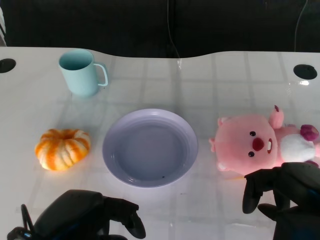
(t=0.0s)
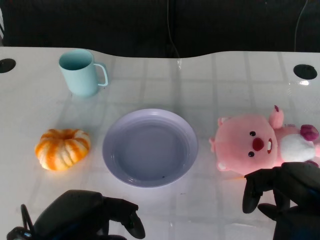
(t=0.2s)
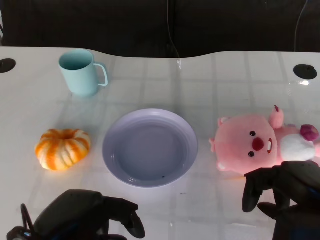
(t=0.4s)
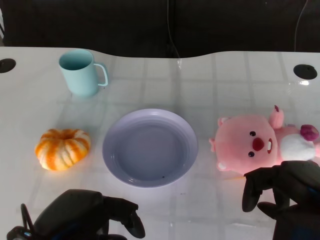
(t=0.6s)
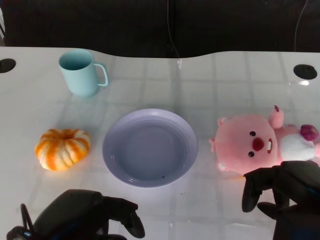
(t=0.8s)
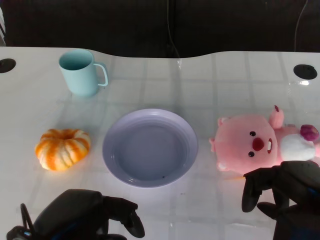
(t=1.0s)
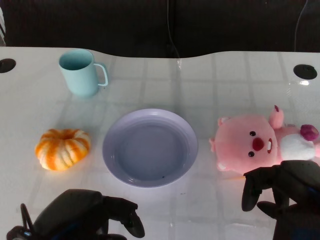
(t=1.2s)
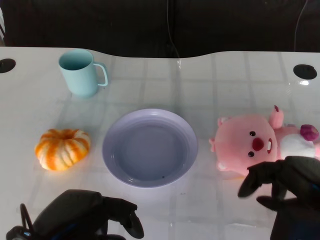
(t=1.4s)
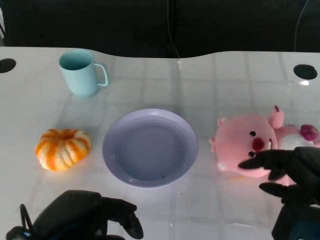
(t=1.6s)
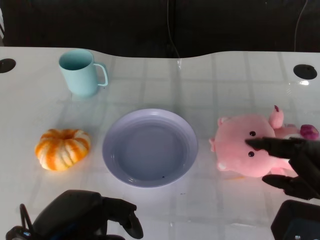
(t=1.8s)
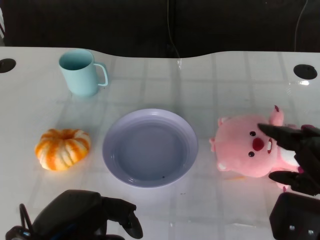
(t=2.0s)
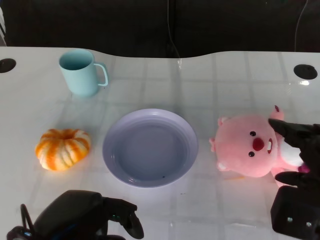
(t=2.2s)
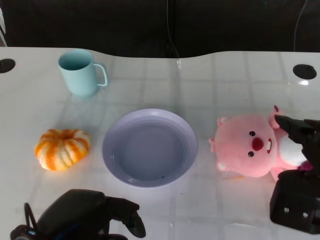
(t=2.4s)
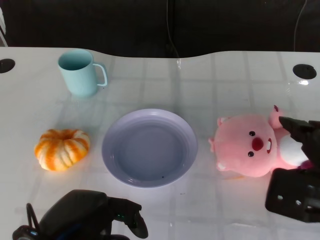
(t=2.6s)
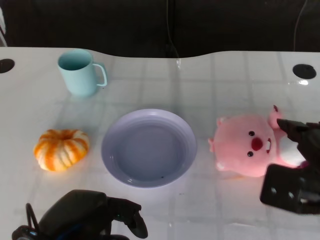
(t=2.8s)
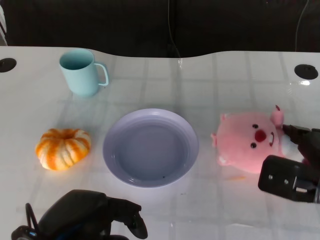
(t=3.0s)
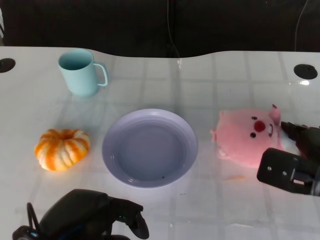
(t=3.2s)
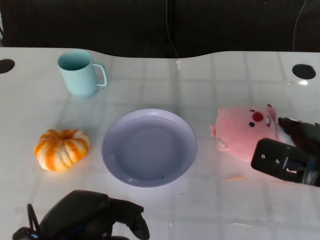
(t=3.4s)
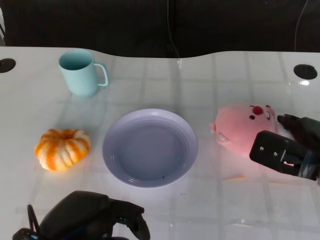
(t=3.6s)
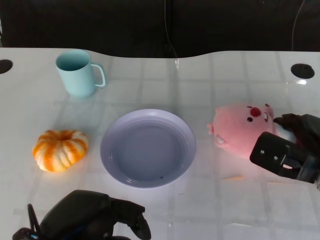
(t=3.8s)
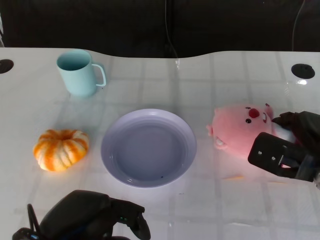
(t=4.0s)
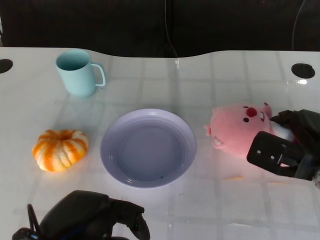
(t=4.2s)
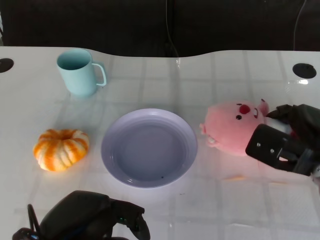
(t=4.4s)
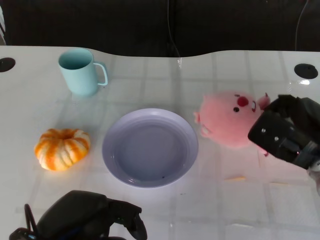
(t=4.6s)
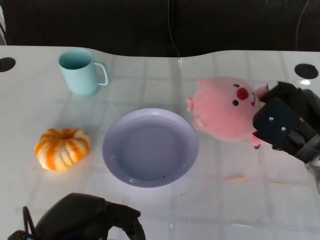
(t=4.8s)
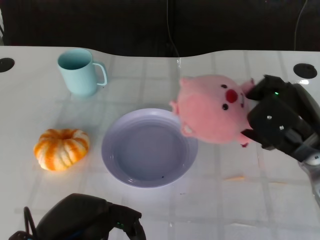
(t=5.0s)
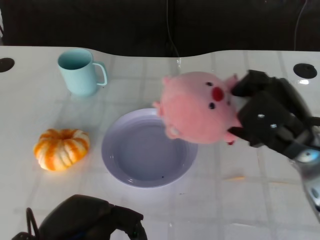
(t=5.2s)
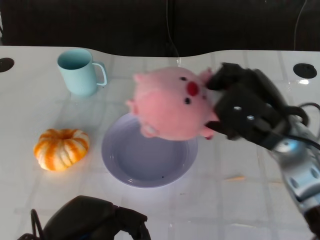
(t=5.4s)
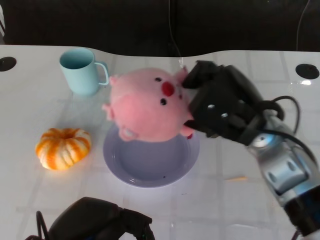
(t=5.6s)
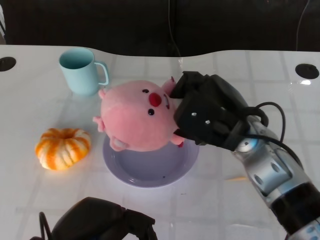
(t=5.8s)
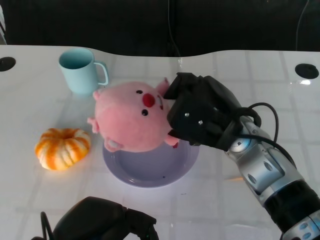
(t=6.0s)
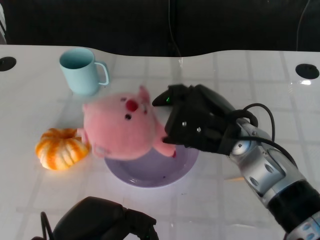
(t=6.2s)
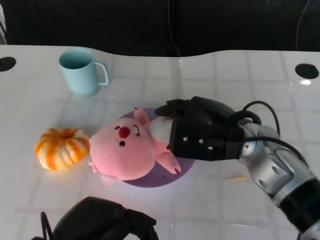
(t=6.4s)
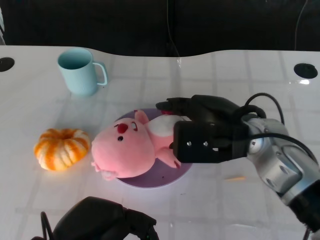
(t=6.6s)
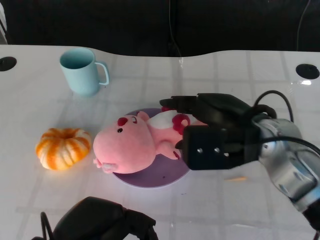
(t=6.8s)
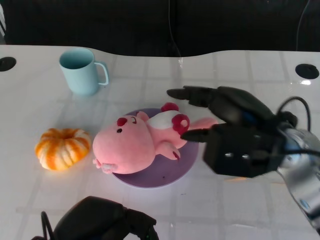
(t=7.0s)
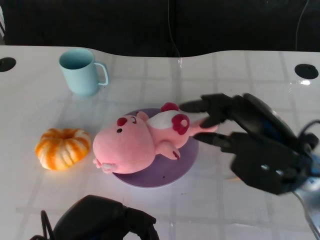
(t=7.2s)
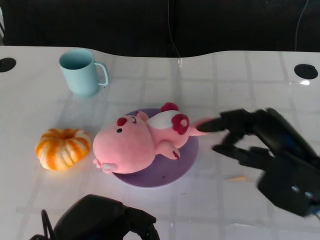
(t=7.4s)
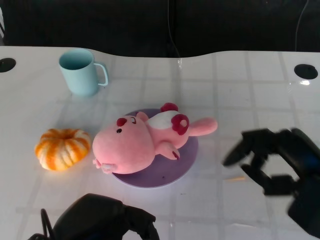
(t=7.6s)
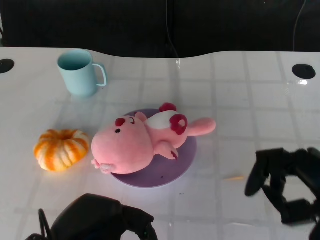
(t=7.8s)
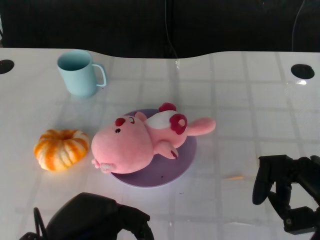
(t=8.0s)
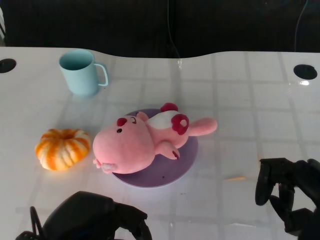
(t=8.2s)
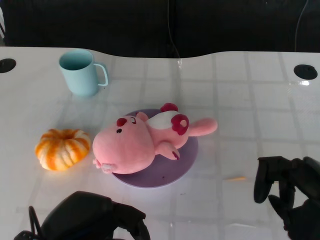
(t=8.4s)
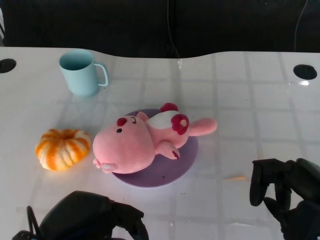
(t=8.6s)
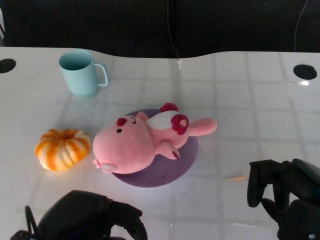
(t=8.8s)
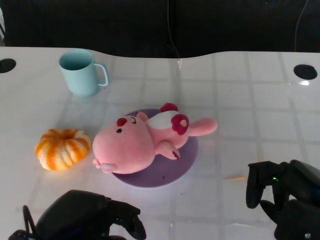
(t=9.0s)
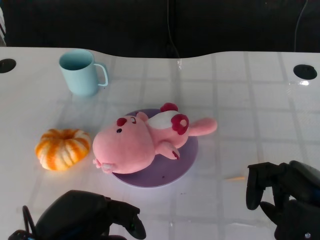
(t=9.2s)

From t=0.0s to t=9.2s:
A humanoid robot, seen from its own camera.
Task of the whole recording: Pick up the doll on the other side of the plate and place it into the plate.
Step, from t=1.4s to t=5.0s: Grasp the pink doll with the right gripper.
Step, from t=5.2s to t=7.2s: Place the pink doll into the plate with the right gripper.
From t=1.6s to t=3.0s: The right hand shifts some 5 cm forward.
From t=3.0s to t=4.6s: The right hand moves about 5 cm.
From t=4.6s to t=6.2s: The right hand is displaced to the left by approximately 10 cm.
From t=6.2s to t=7.6s: The right hand heads to the right and backward, covering roughly 15 cm.
From t=7.6s to t=9.2s: The hands move only a little.

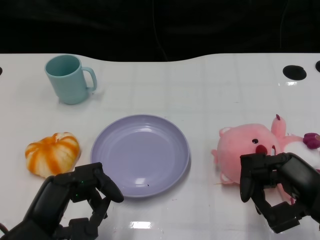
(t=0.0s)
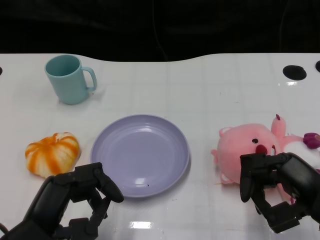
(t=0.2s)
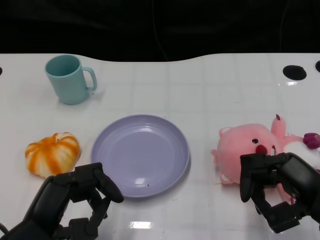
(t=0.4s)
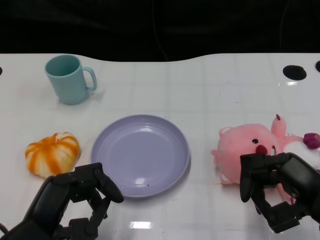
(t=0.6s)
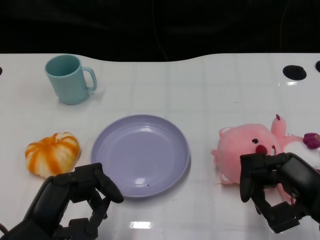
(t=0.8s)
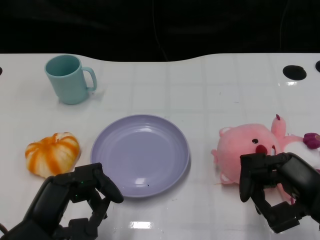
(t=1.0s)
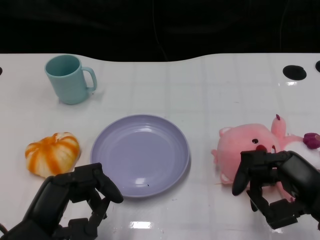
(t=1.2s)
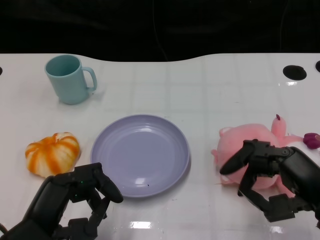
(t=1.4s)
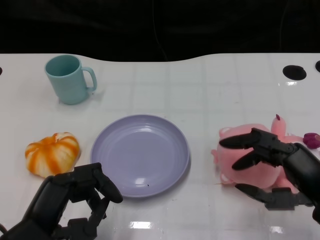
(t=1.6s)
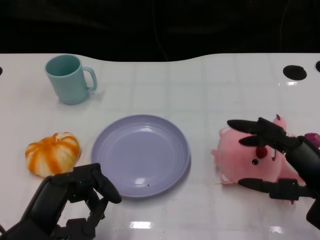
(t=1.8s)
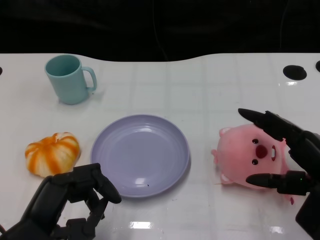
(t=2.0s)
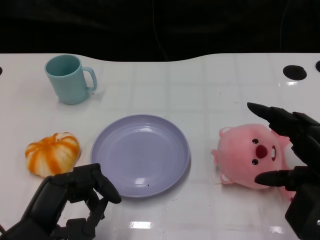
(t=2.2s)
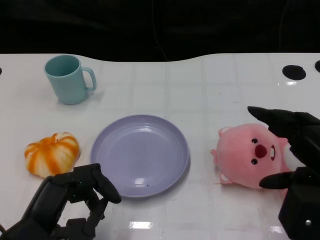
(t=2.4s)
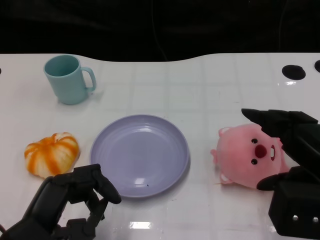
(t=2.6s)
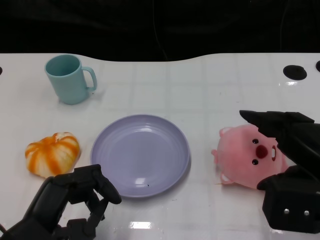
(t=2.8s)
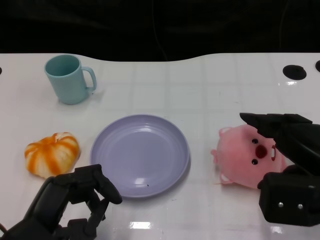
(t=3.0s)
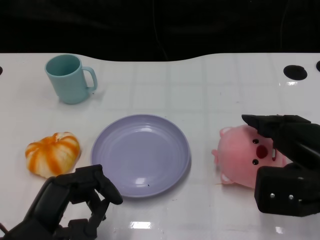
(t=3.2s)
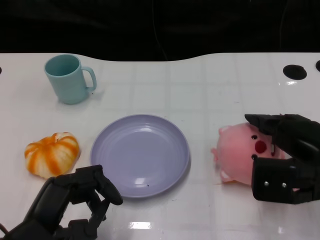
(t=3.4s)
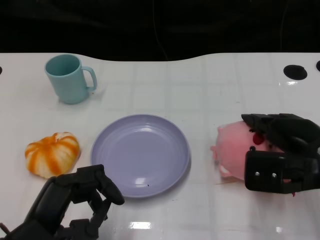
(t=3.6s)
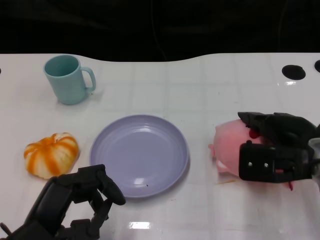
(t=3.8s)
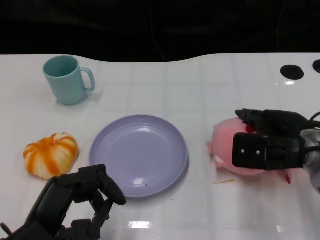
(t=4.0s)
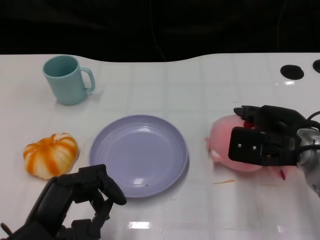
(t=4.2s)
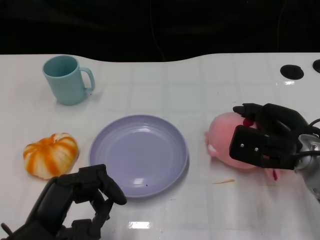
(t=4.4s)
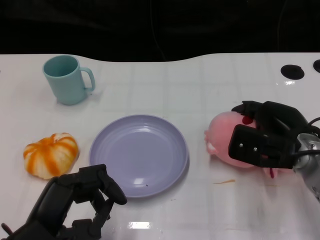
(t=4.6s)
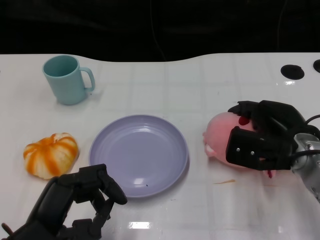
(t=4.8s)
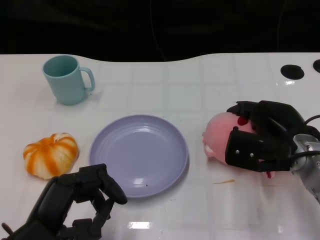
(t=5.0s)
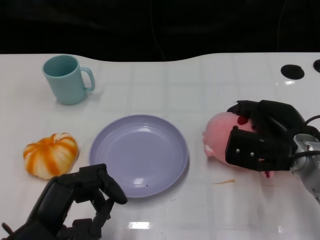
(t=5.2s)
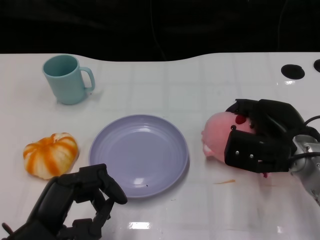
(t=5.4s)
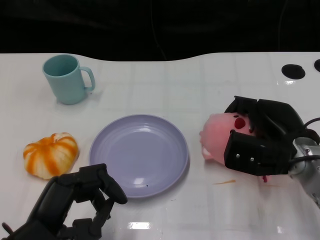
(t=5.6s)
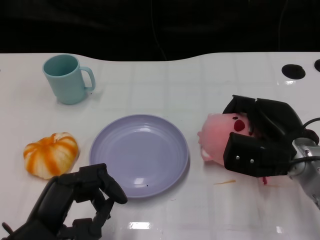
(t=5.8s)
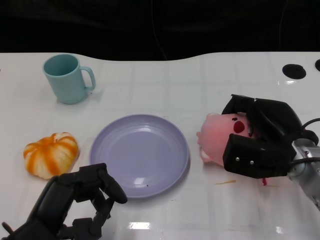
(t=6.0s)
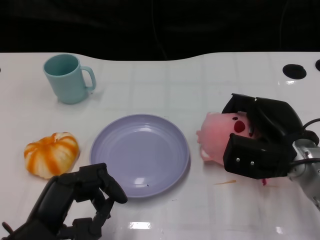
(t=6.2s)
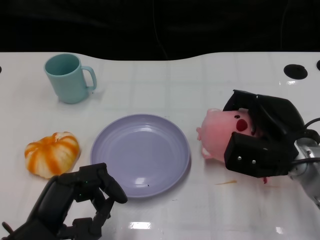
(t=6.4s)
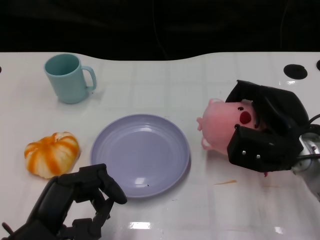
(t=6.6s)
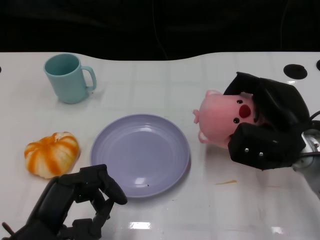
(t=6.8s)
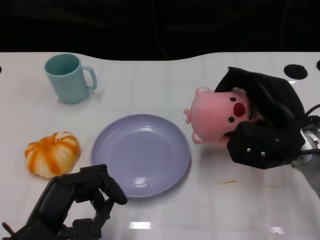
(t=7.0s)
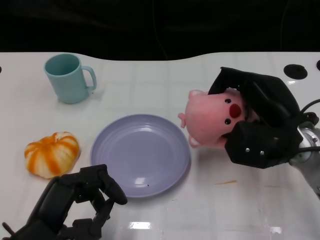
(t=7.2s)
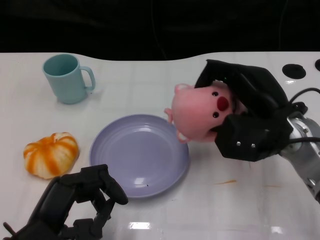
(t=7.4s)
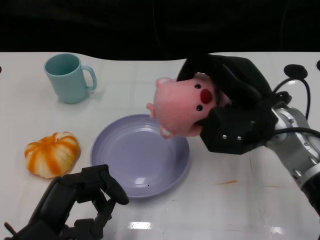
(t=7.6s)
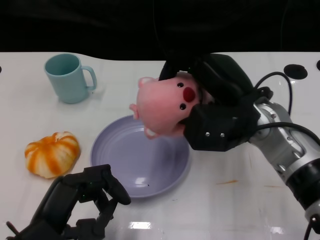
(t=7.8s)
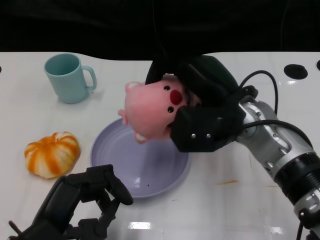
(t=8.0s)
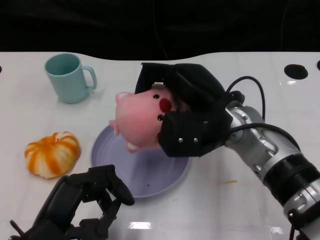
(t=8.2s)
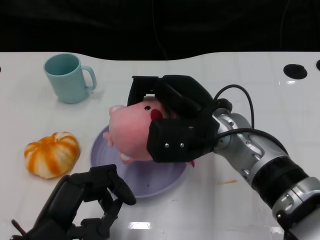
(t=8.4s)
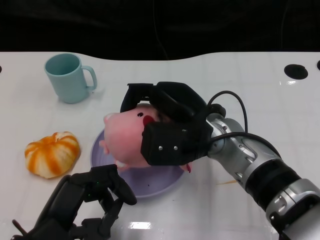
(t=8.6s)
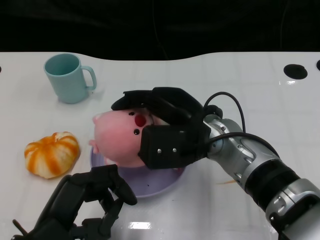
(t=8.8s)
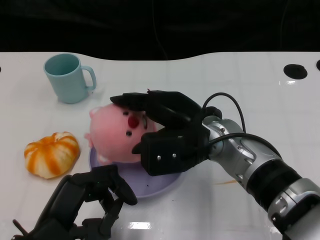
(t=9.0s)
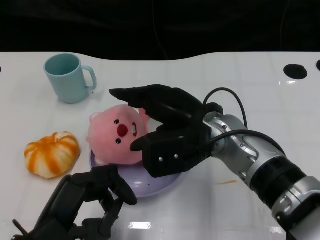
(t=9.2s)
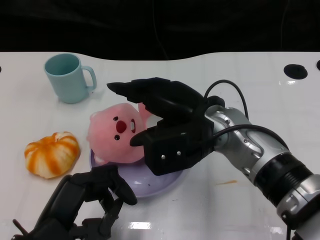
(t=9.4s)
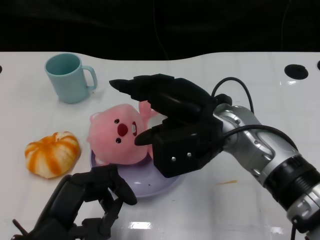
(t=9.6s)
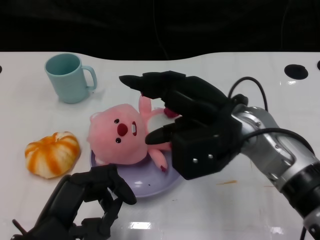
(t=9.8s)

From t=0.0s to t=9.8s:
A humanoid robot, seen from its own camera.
Task of the whole recording: Pick up the doll on the other side of the plate and place it into the plate.
Step, from t=1.0s to t=7.4s: Grasp the pink doll with the right gripper.
From t=2.8s to t=4.2s: The right hand travels forward and downward by approximately 10 cm.
From t=4.2s to t=5.6s: The hands make only small movements.
From t=5.6s to t=7.0s: The hands move only a little.
From t=7.0s to t=8.4s: The right hand travels to the left by approximately 10 cm.
From t=8.4s to t=9.8s: The hands stay close to where they were, moving slightly.

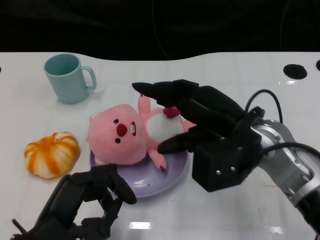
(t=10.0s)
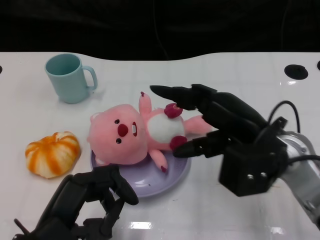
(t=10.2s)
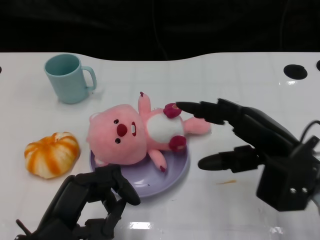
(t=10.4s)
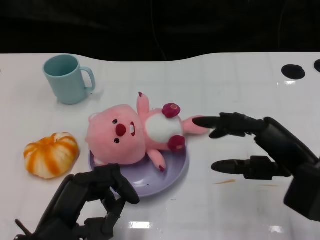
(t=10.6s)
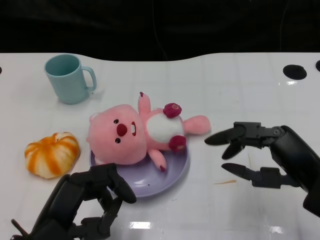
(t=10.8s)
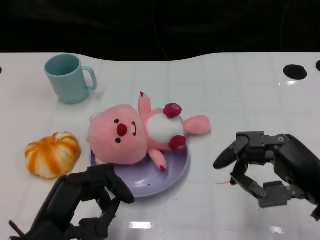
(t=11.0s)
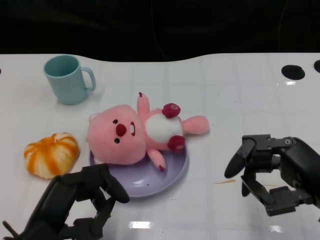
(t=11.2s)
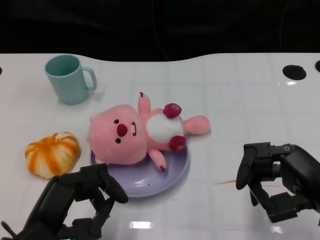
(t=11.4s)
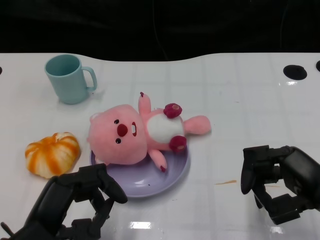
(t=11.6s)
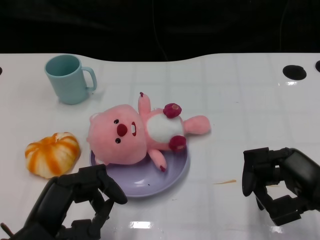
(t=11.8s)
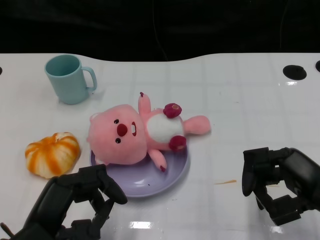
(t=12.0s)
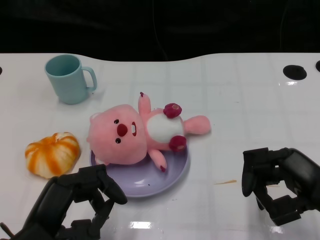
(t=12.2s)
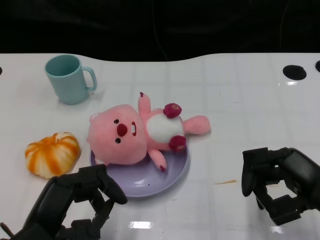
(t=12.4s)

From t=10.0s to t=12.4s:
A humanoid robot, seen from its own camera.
Task of the whole recording: Pick up the doll on the other side of the plate and place it into the plate.
From t=10.0s to t=11.2s: The right hand moves to the right and backward, roughly 15 cm.
From t=11.2s to t=12.4s: There are only small adjustments of the hands.
